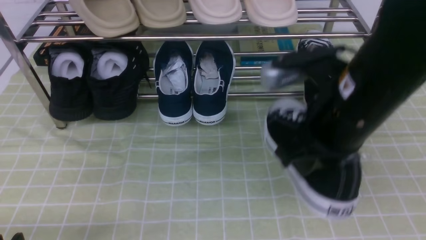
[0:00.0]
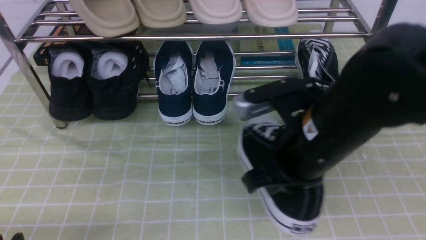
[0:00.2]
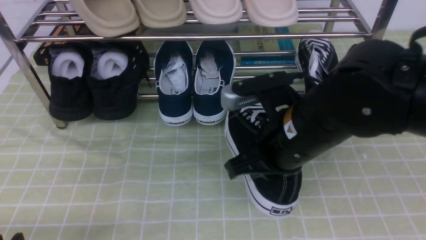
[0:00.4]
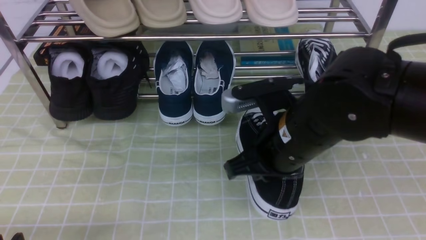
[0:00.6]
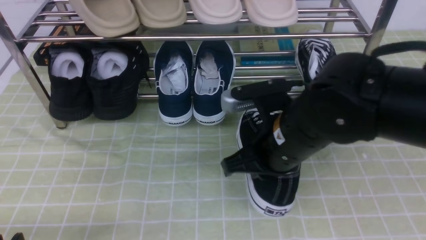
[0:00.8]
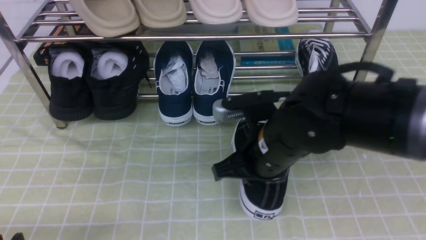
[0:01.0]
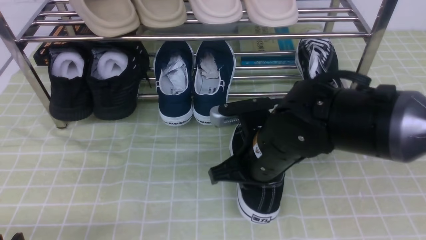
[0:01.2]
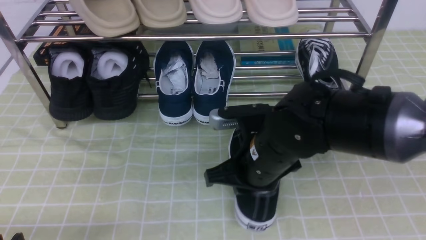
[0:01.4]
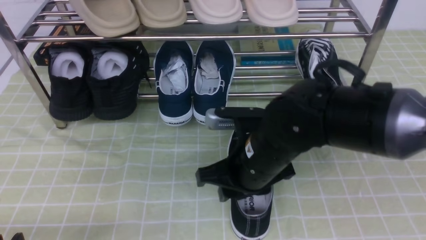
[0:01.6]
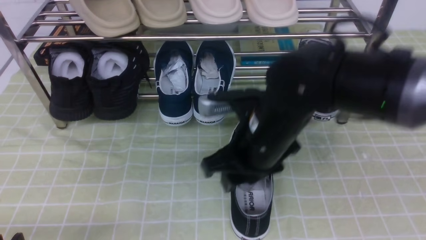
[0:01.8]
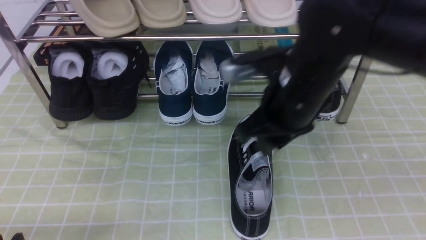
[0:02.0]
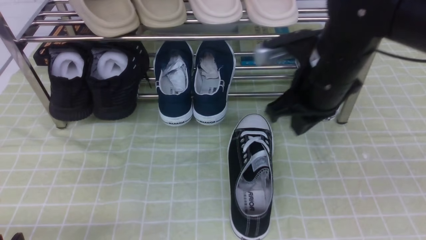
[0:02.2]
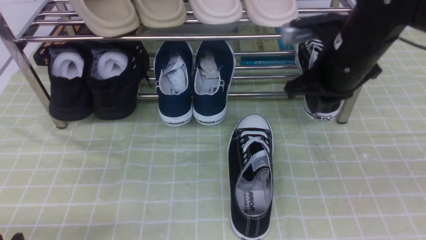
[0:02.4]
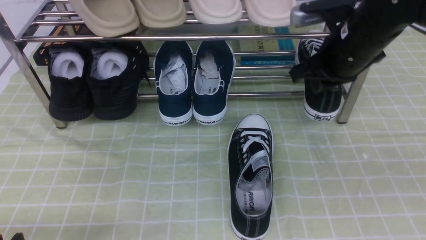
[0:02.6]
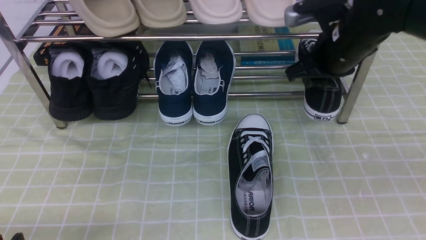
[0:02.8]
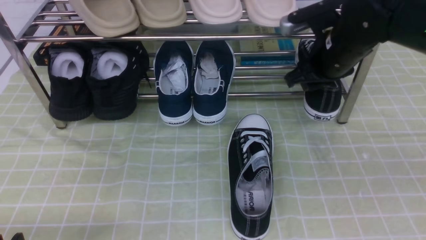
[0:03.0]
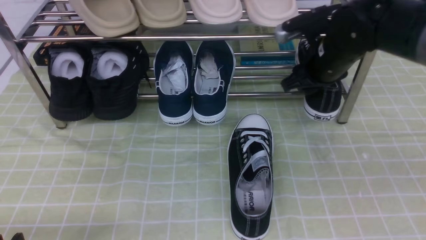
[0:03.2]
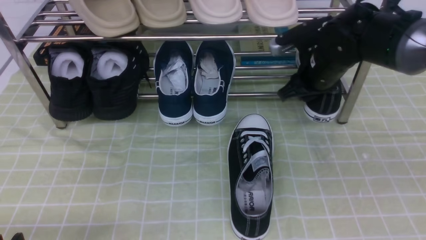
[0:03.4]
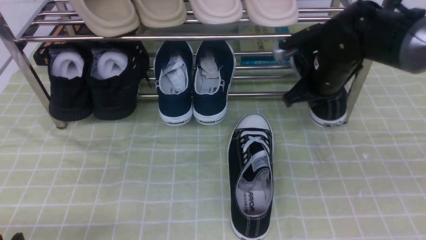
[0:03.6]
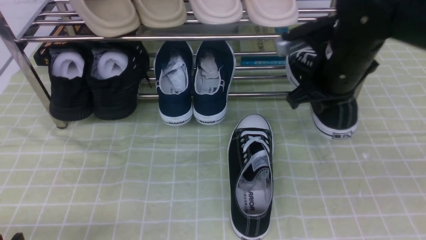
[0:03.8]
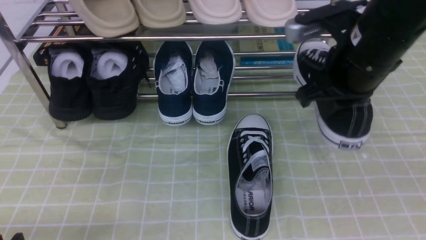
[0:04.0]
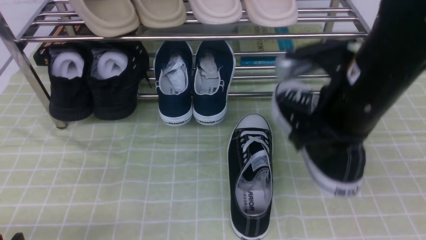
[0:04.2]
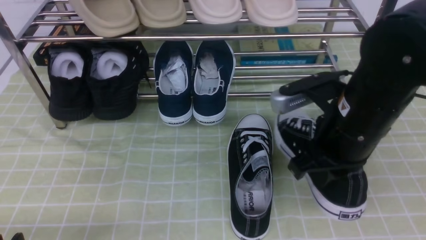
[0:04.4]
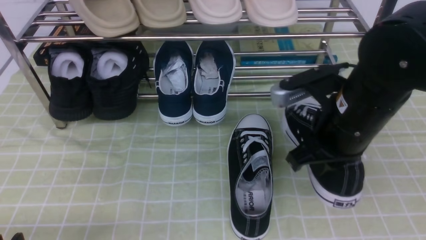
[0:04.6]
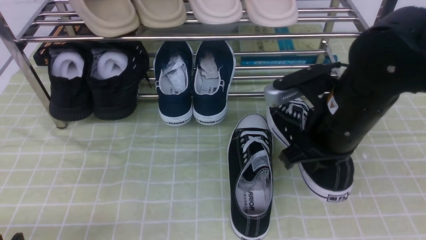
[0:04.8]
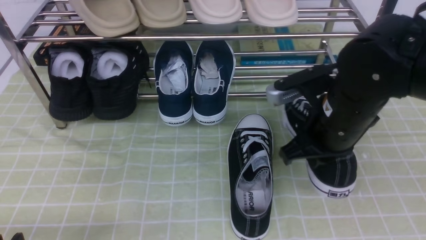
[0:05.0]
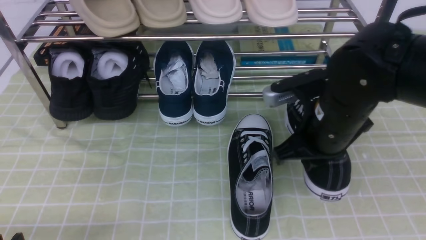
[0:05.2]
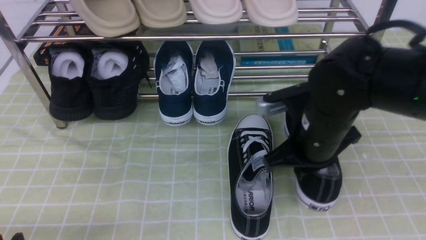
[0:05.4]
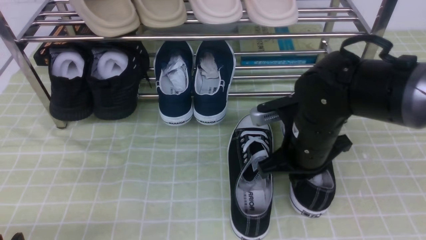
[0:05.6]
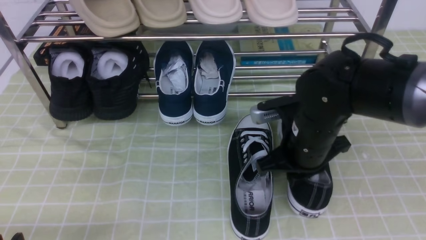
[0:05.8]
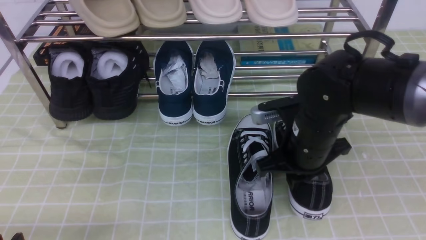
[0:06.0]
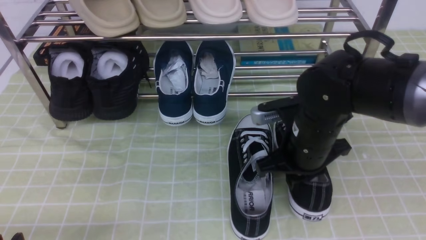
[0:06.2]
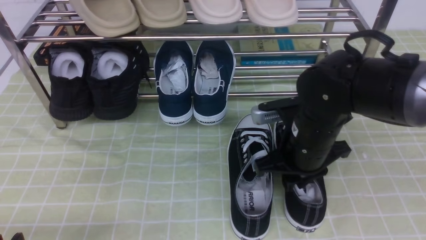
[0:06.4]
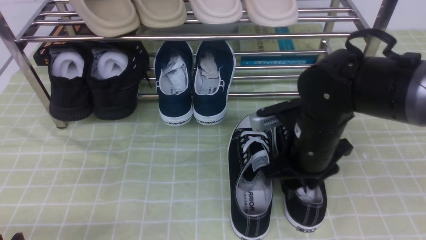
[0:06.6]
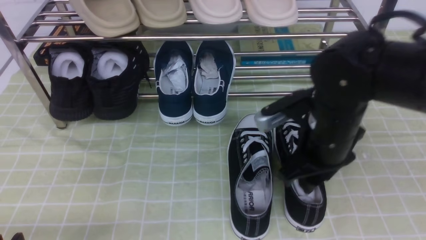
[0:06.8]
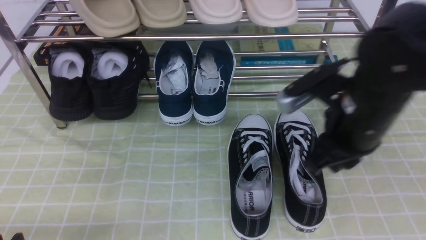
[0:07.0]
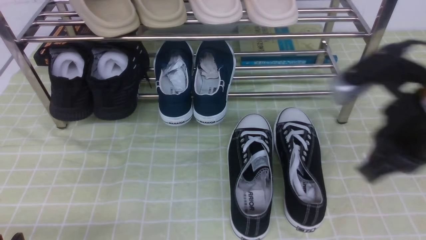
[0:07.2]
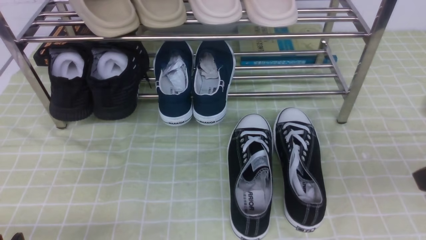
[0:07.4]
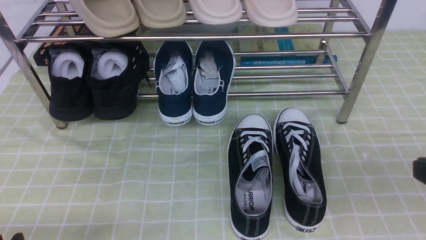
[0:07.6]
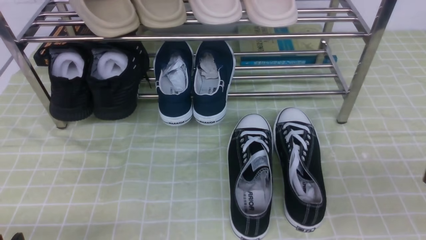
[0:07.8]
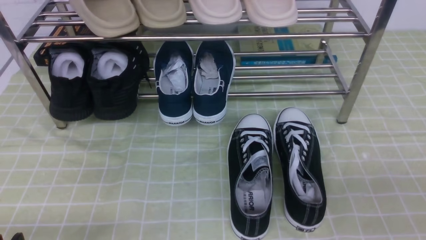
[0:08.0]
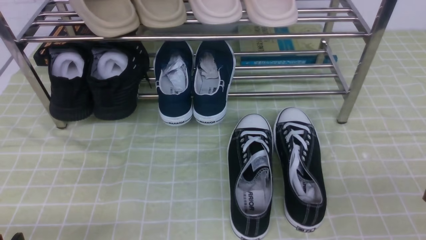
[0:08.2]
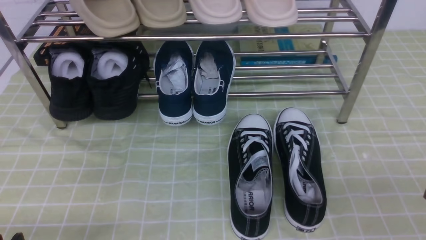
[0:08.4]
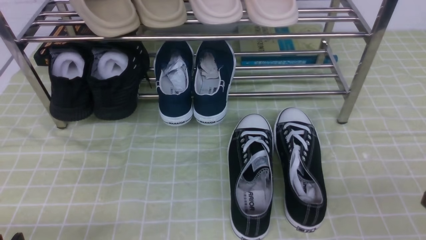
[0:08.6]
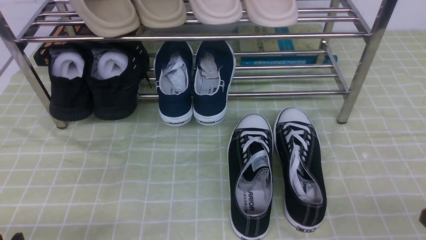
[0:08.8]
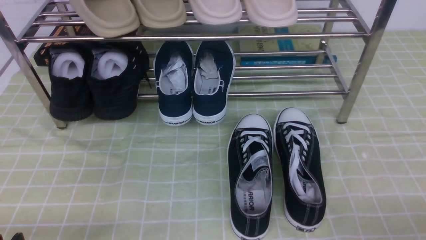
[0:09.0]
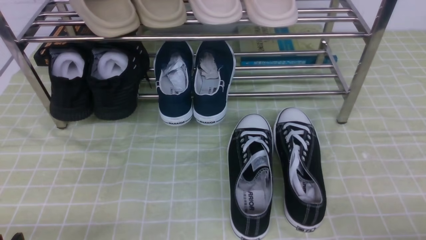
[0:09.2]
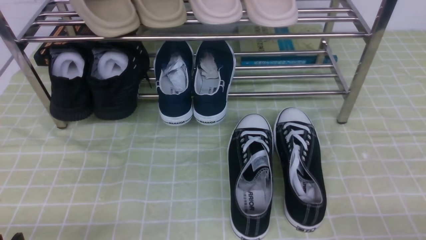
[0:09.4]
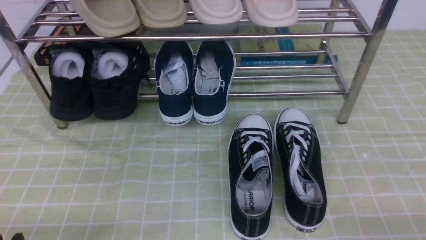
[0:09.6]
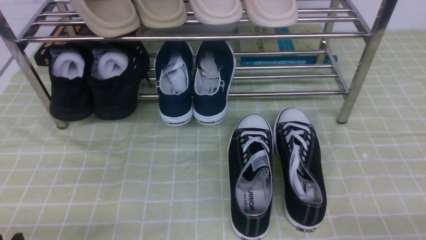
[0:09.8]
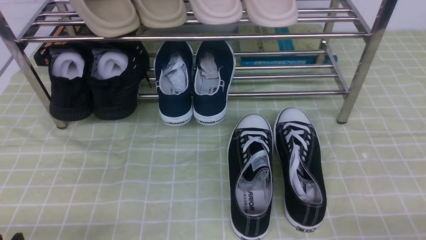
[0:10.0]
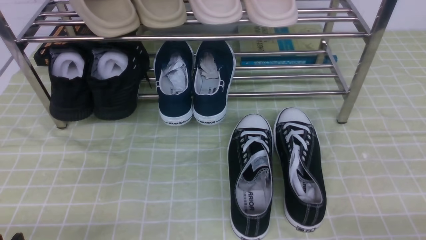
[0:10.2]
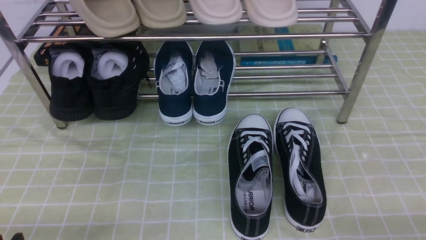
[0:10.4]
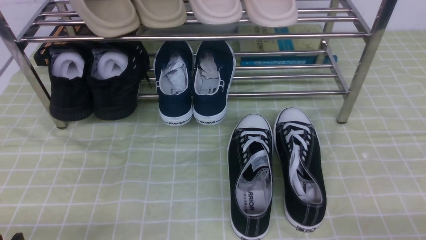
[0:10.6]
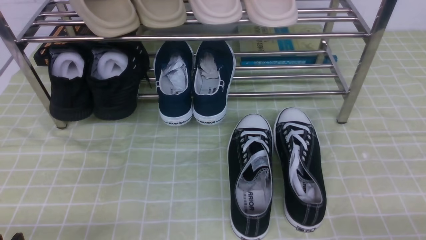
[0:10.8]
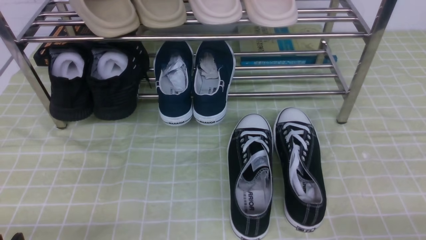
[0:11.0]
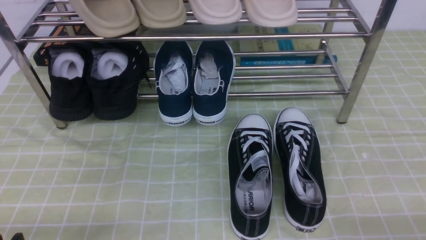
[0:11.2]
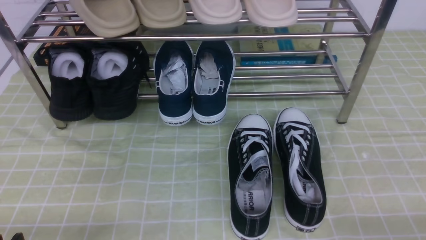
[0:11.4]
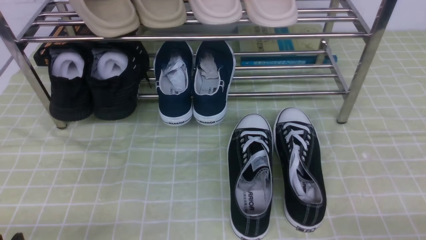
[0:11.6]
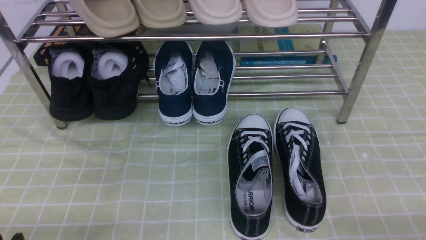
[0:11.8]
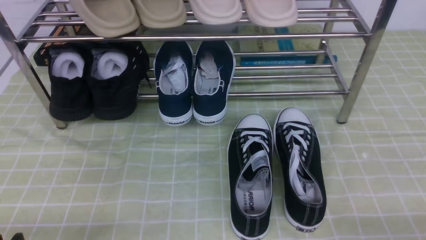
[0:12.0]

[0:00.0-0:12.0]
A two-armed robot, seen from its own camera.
Step, 0:00.0 to 0:01.6: use the right arm to take out the clamped shoe from the shoe rack and put it down.
Step, 0:02.0 to 0:03.6: use the right arm to clamp a shoe on the right side of the shoe rack.
Step, 0:03.8 to 0:06.8: use the right arm to take out the clamped shoe from the shoe rack and put it down.
0:00.0 to 0:01.6: The right gripper goes about 15 cm downward and to the left, and opens up.
0:01.6 to 0:03.0: The right gripper heads forward, to the right and upward, covering roughly 20 cm, and closes and opens again.
0:03.0 to 0:04.4: The right gripper heads backward, covering approximately 15 cm, and closes its fingers.
0:04.4 to 0:06.0: The right gripper travels downward by roughly 10 cm.
0:06.0 to 0:07.6: The right gripper is displaced backward, to the right and upward by about 25 cm, and opens, then closes again.
0:07.6 to 0:09.0: The right gripper goes approximately 10 cm downward.
0:10.4 to 0:12.0: Neither gripper changes place.

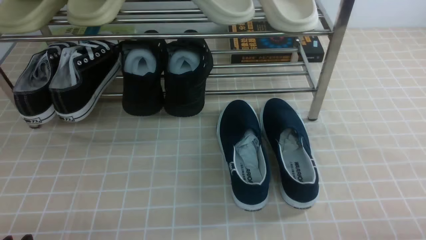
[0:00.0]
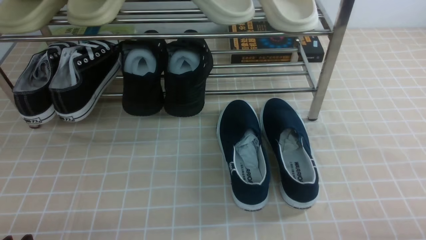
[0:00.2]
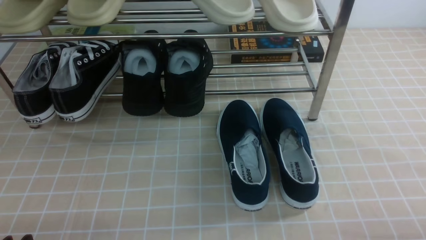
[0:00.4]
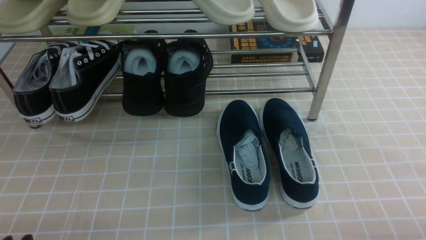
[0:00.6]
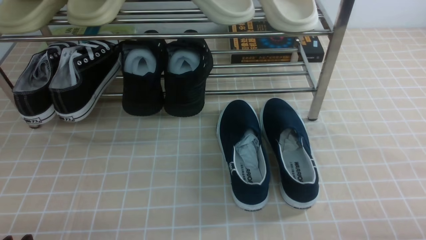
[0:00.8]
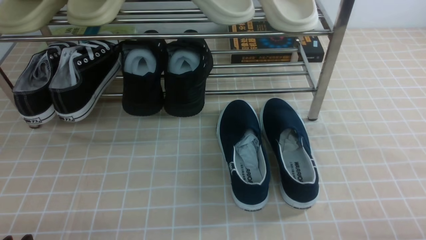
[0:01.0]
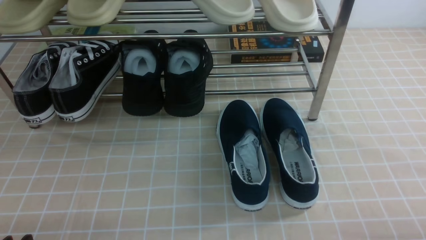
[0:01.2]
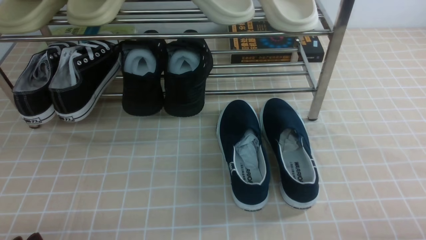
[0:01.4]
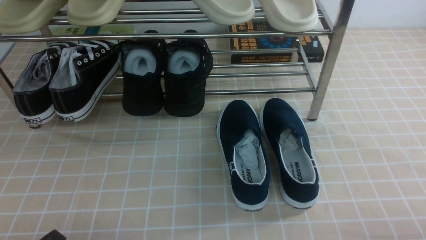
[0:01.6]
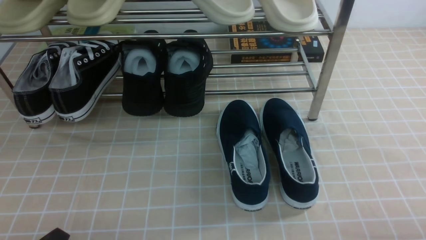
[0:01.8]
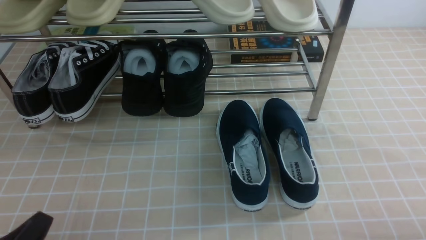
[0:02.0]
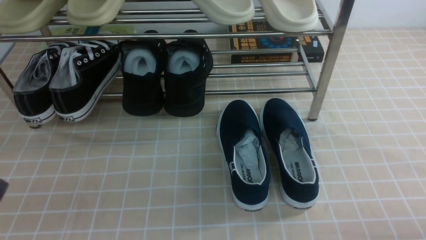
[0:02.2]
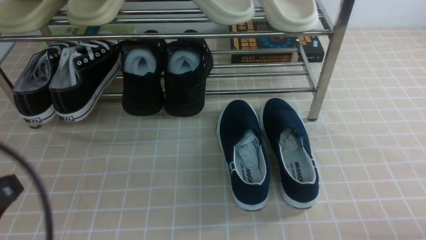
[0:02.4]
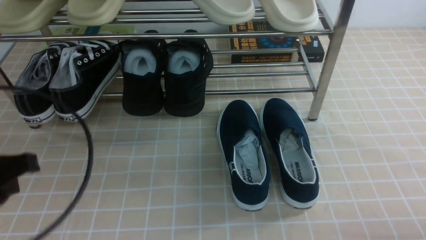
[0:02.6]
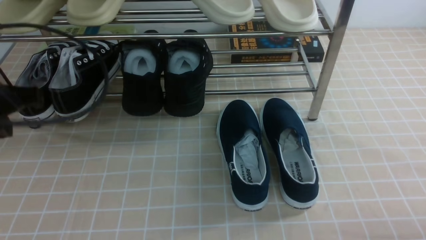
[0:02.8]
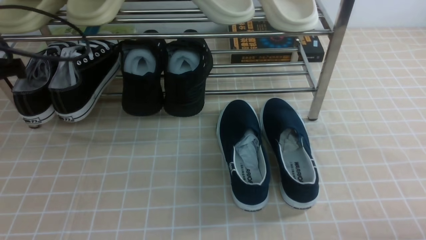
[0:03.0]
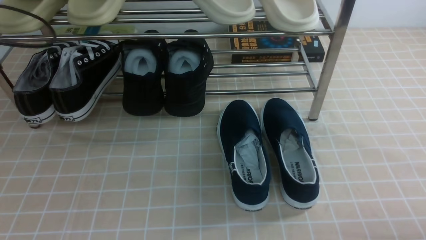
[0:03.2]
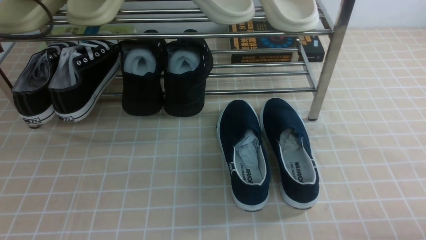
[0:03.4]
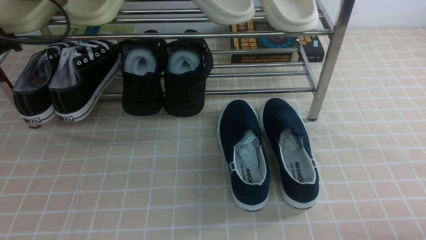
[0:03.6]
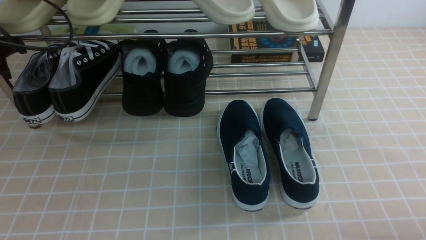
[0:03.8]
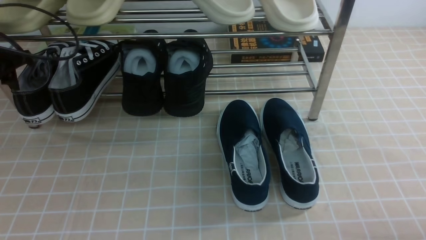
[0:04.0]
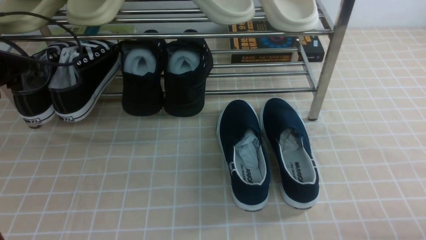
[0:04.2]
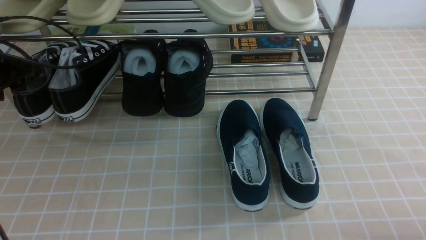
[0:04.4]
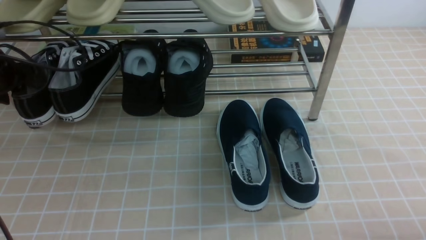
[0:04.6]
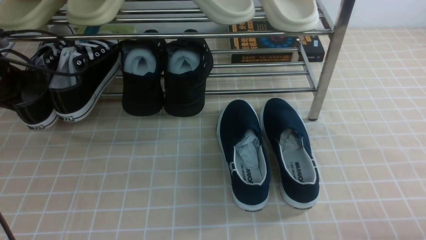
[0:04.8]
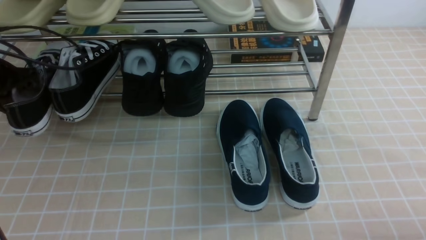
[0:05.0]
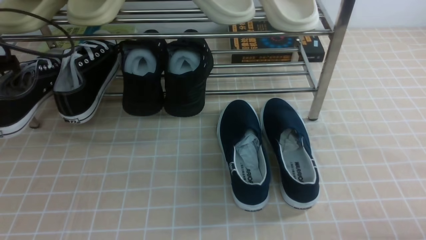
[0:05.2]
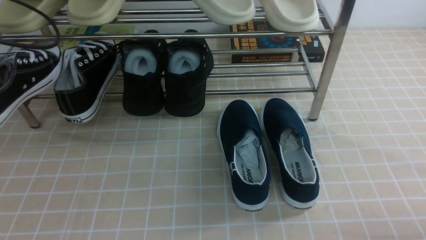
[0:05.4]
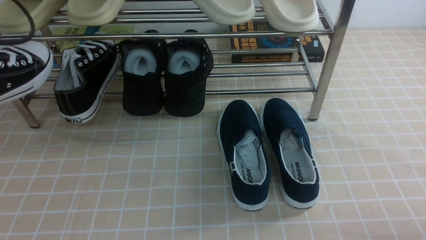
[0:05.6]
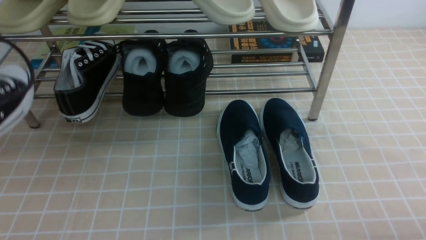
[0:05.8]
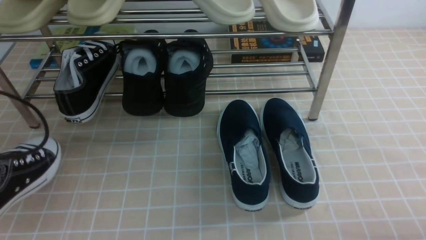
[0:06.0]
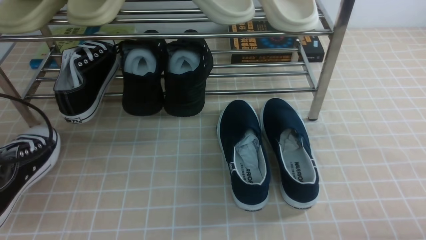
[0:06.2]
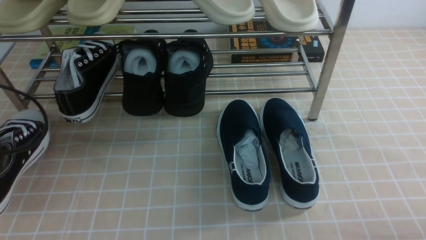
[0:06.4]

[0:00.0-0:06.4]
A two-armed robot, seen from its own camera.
Step, 0:00.0 to 0:04.6: use the left arm to clamp a shoe on the left side of the shoe rack.
0:01.6 to 0:03.2: The left gripper heads forward and upward, covering about 30 cm, and closes.
0:03.2 to 0:04.8: The left gripper heads downward and forward, covering some 10 cm, and opens and closes again.
0:04.8 to 0:06.4: The left gripper moves backward, some 15 cm.
